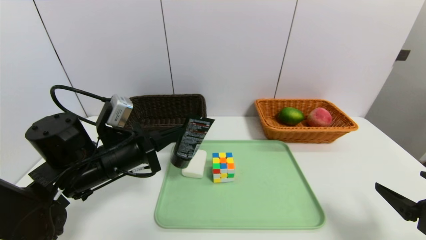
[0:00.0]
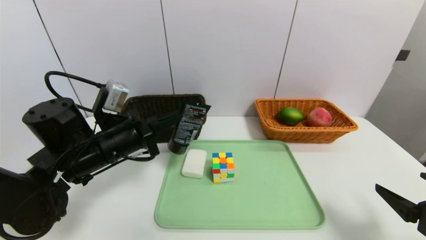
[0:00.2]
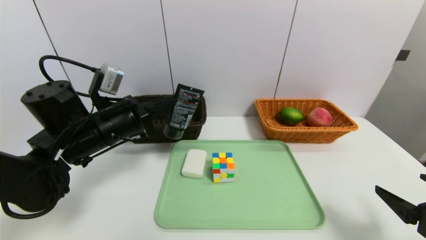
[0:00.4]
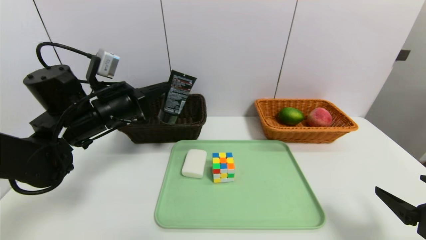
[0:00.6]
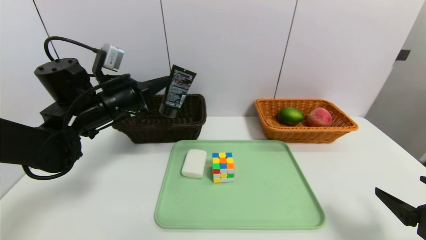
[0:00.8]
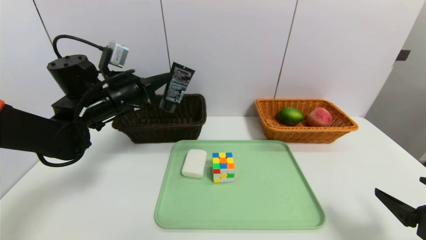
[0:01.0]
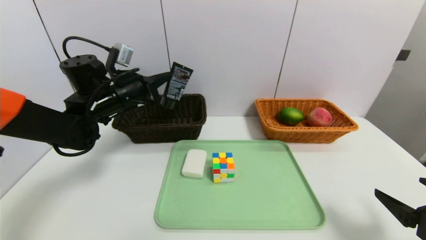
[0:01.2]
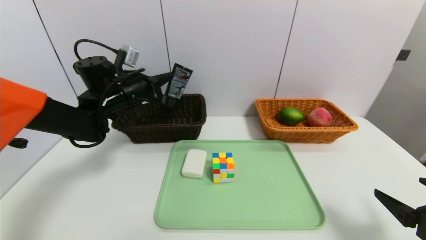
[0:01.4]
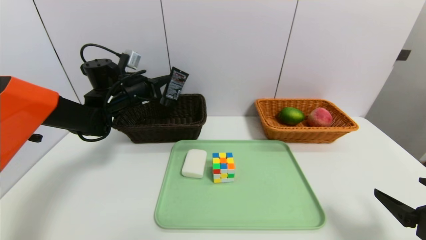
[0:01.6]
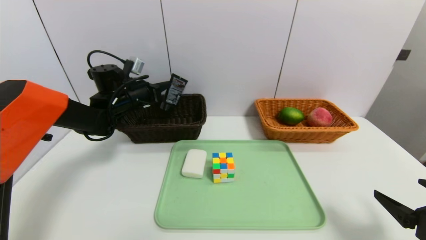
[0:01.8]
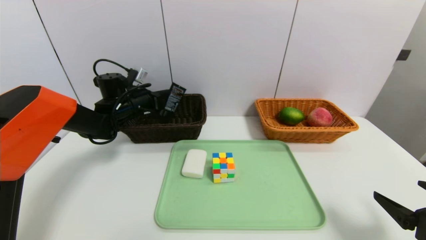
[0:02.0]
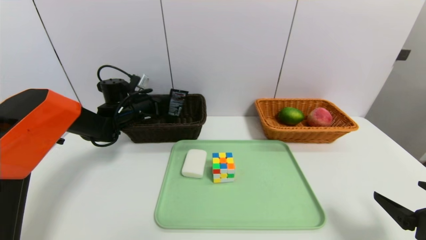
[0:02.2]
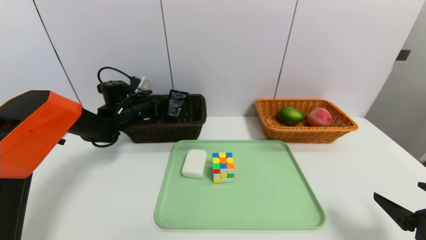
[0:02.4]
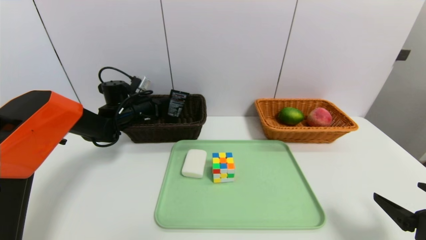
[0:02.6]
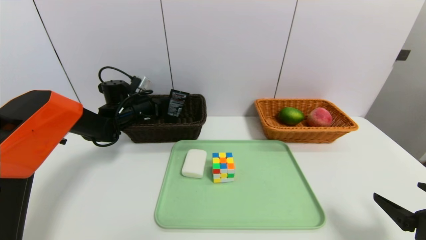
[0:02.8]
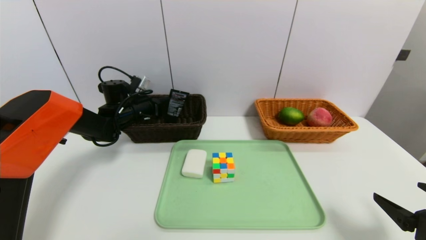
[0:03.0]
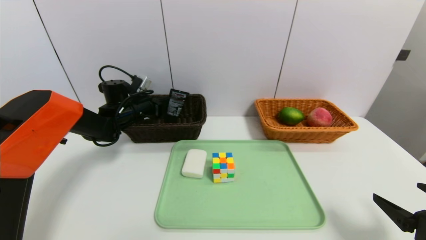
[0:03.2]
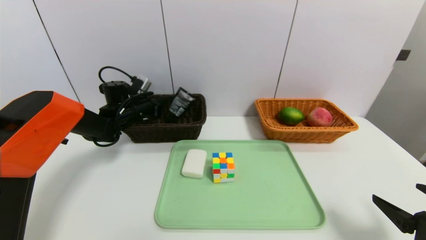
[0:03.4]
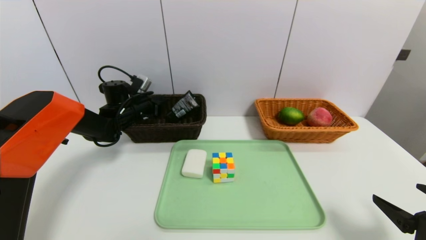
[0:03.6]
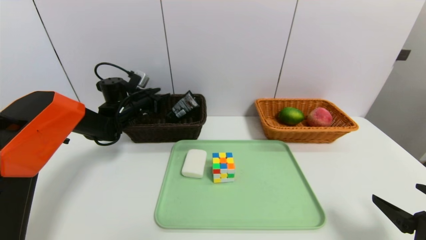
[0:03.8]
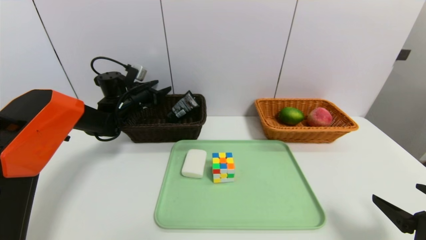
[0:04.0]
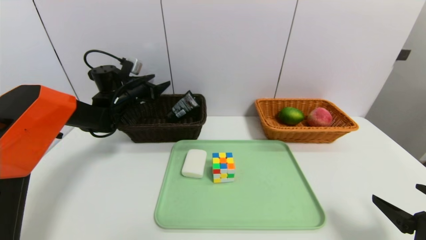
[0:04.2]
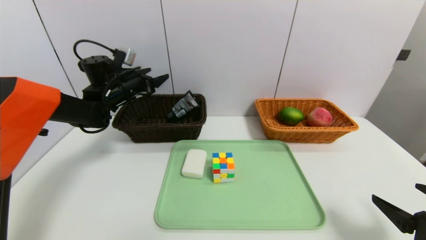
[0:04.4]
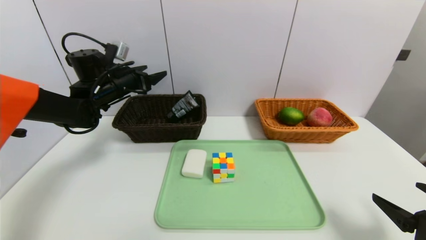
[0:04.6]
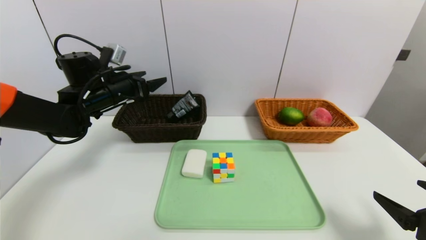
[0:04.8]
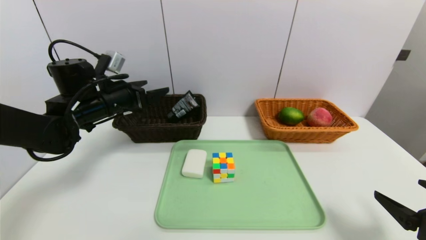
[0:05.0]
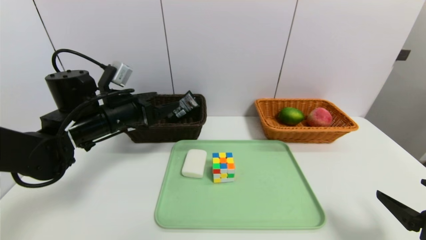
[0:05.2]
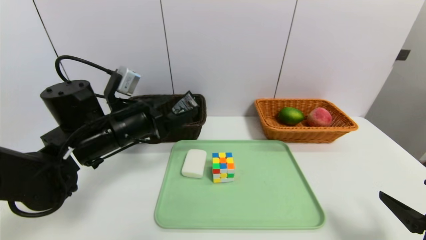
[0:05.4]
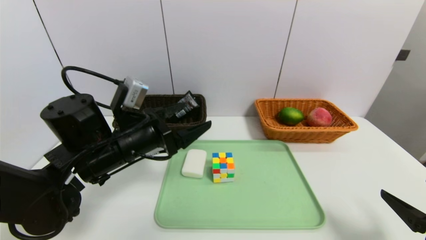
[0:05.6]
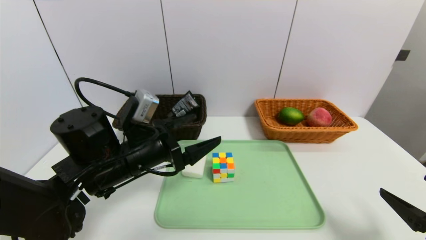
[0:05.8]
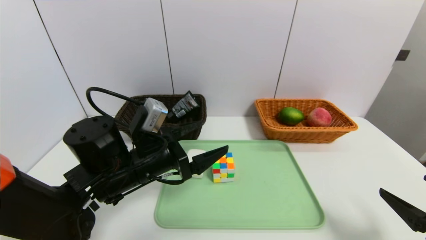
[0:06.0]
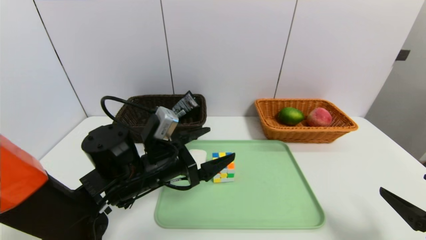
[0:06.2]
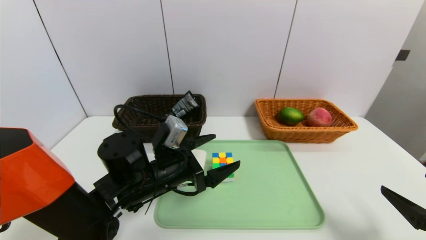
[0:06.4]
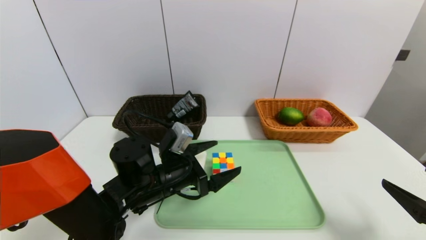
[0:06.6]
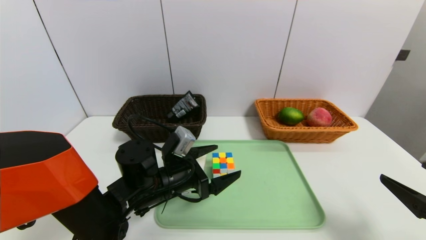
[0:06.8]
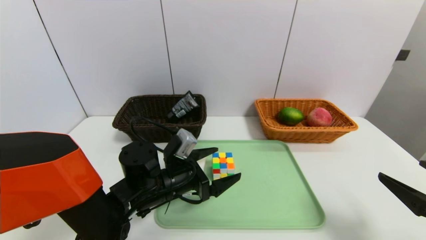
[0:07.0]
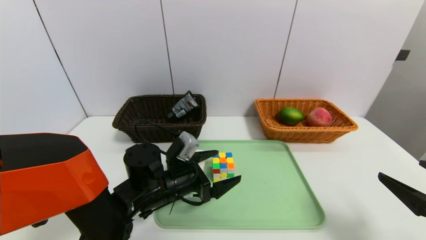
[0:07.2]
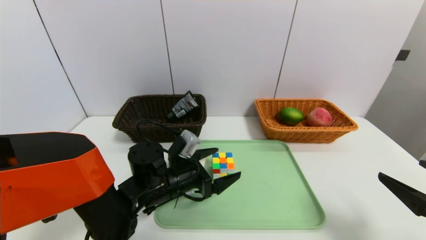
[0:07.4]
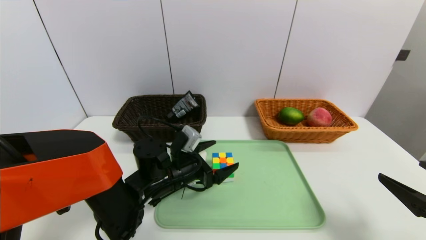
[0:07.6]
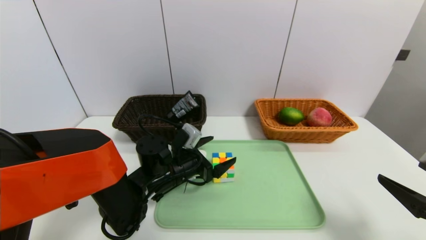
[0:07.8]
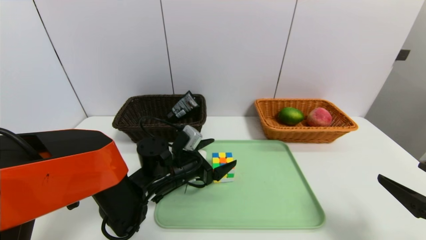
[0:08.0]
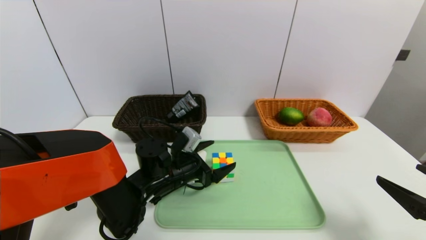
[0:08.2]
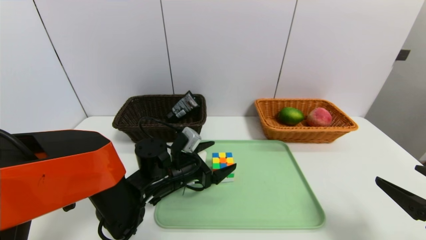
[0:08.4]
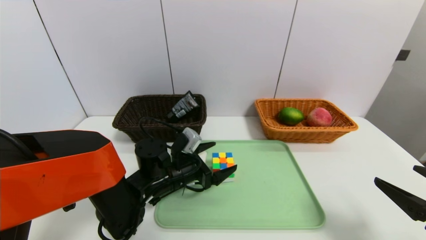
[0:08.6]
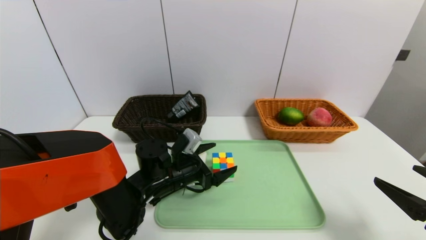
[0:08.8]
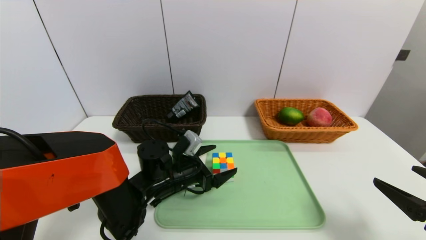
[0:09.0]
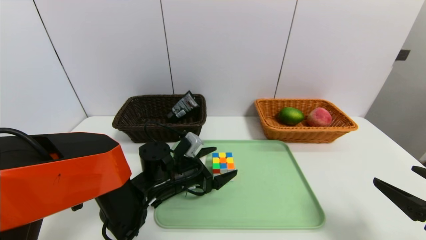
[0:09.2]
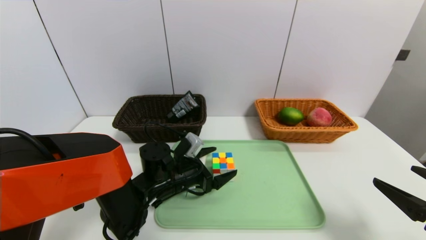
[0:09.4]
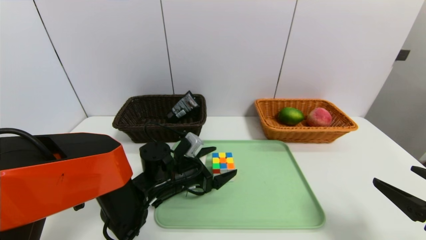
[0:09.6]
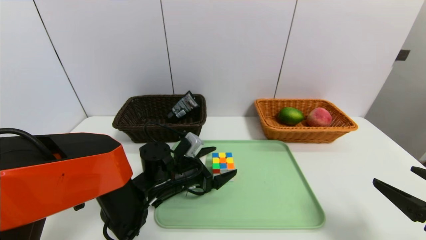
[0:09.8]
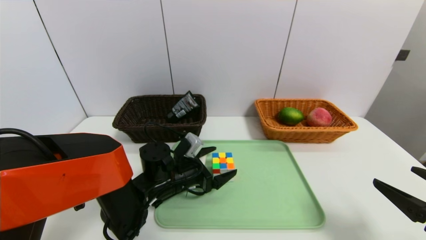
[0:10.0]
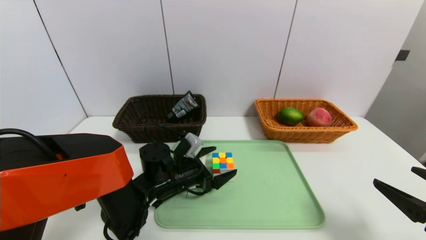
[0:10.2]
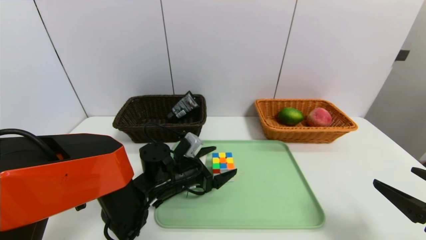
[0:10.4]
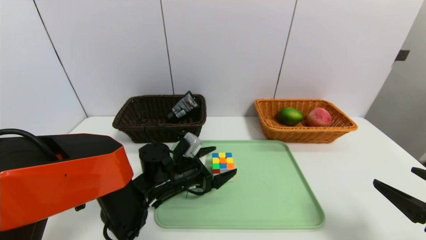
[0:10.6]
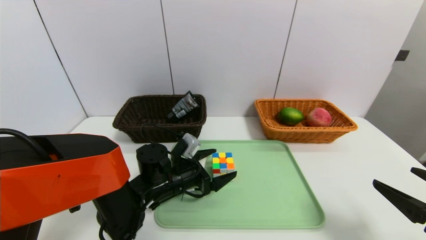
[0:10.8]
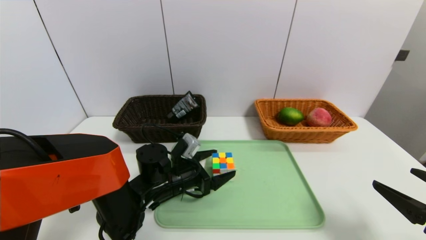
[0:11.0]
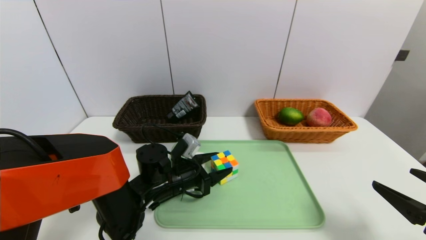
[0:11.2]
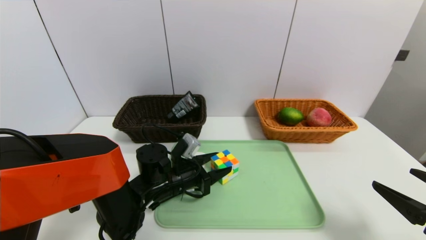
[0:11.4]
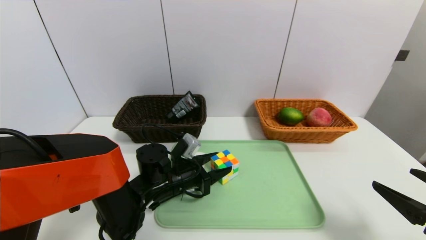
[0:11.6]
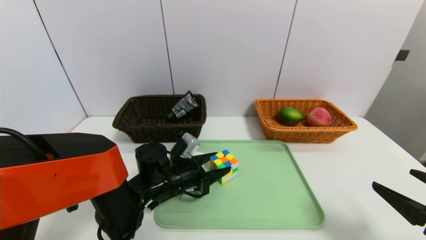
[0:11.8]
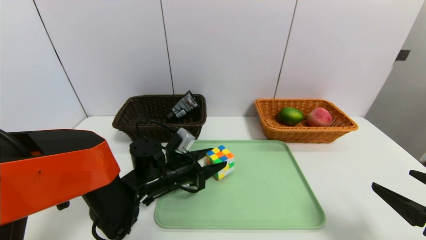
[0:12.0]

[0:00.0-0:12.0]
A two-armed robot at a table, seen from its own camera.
Task of the whole recording: place the food in the right basket with the right gripper, and place the non food items in the left basket with the left gripper.
Step, 0:00.0 to 0:04.0: Grasp the soft cleanser and put it in the left basket.
0:00.0 to 0:01.6: The left gripper goes roughly 20 cm forward.
0:01.6 to 0:03.0: The left gripper moves downward, about 5 cm.
0:03.0 to 0:04.4: The left gripper shifts roughly 10 cm upward, and opens up.
0:04.4 to 0:06.0: The left gripper moves backward and to the right, about 25 cm.
0:06.0 to 0:07.6: The left gripper heads downward, covering some 10 cm.
0:07.6 to 0:10.4: The grippers move only a little.
0:10.4 to 0:12.0: The left gripper closes.

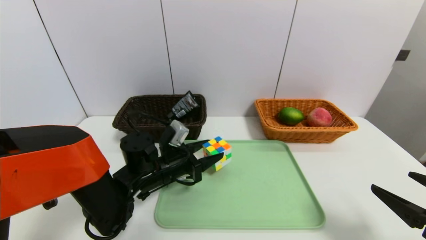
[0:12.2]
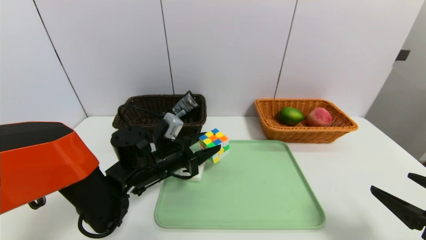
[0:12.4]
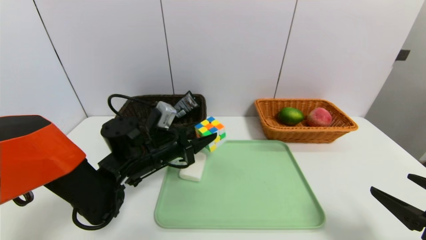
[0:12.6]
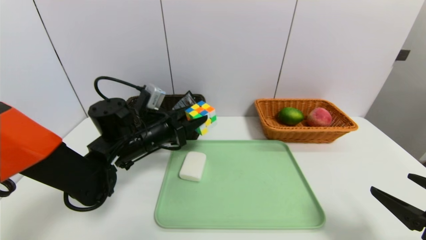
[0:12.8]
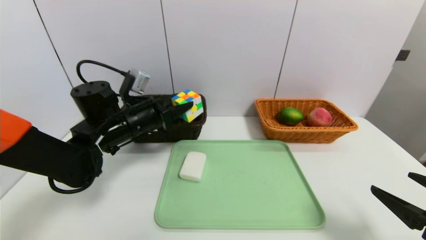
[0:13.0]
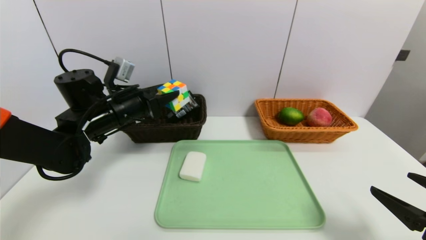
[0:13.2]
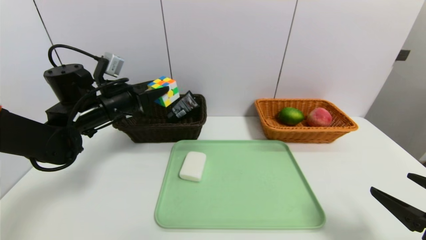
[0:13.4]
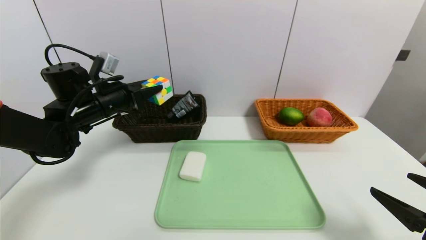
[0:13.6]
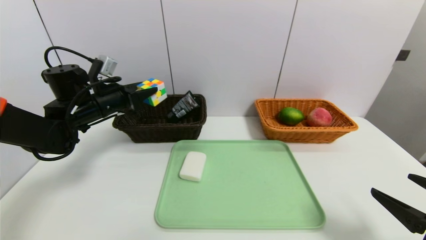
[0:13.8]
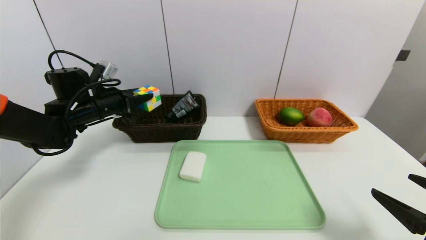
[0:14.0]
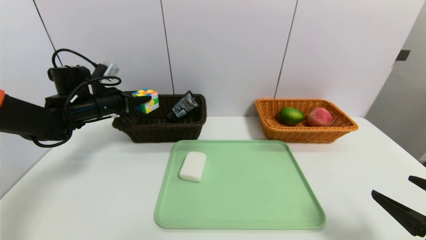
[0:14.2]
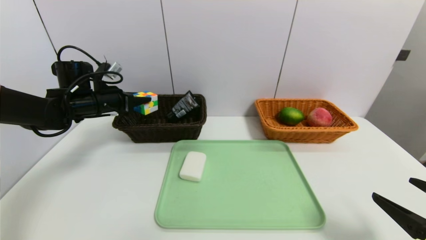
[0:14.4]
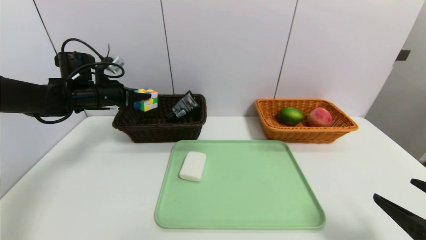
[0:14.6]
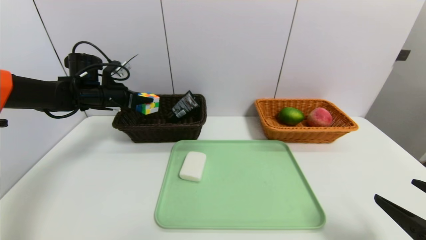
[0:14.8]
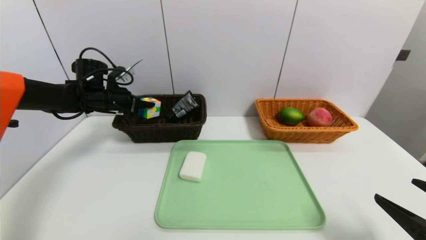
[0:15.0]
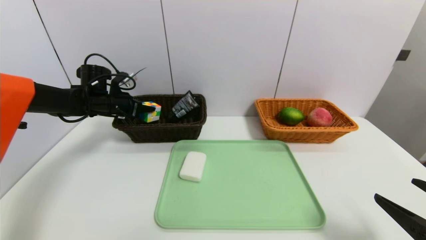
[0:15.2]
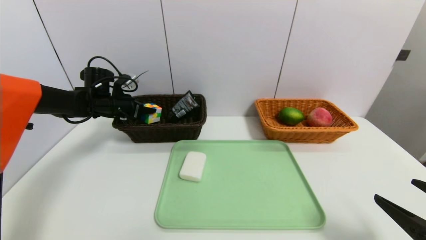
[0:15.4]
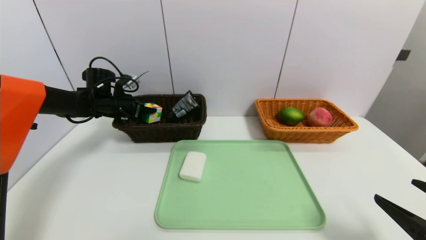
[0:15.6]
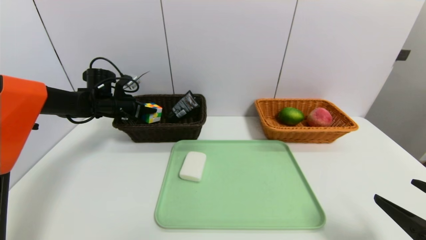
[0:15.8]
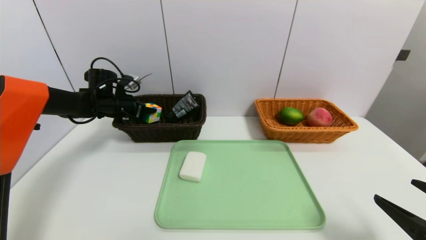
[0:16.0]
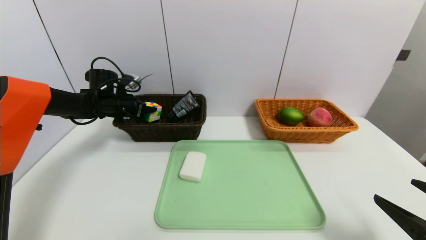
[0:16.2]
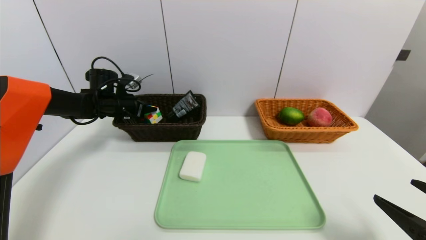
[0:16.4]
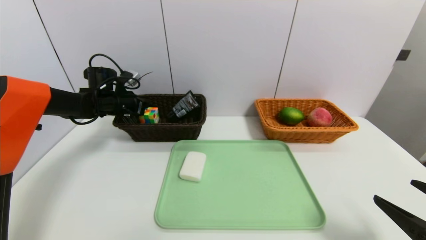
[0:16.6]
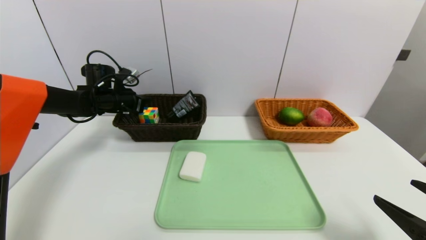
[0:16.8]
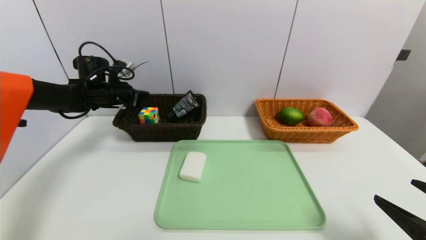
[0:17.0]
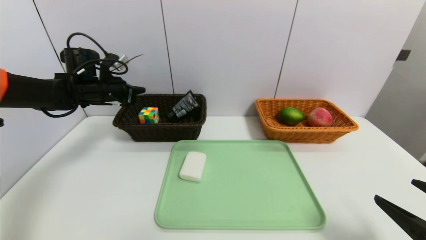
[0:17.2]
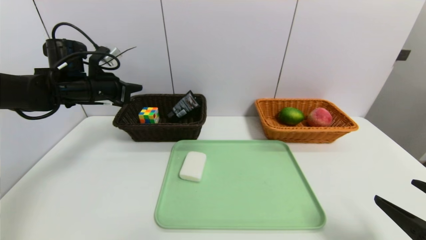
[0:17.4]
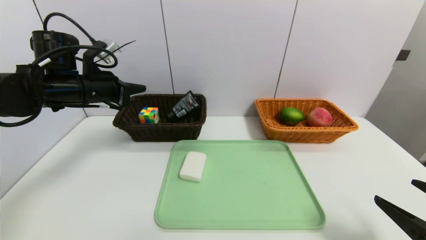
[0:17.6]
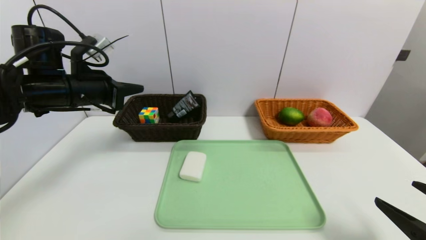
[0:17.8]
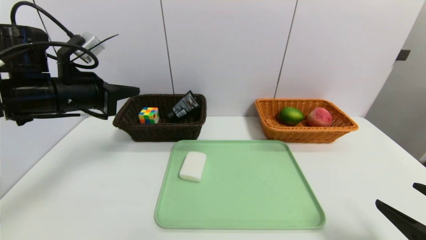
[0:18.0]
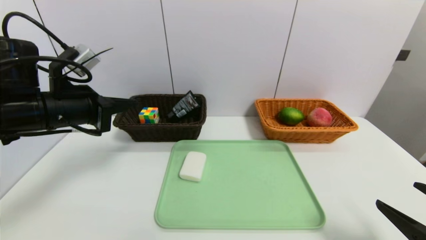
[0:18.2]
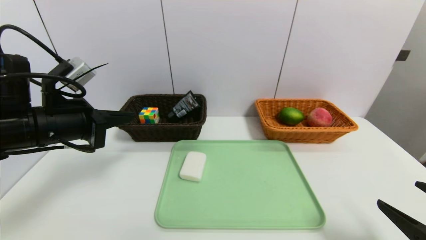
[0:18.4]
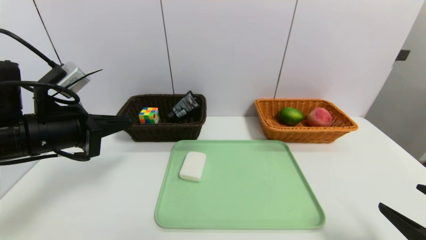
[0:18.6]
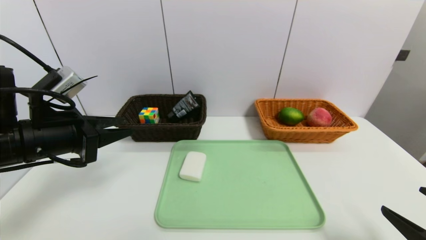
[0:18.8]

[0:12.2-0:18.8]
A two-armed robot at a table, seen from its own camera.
Task of the whole recording: place the food in the right basket with the right gripper, and place the non food items in the left basket with the left gripper.
Step, 0:12.2 to 0:16.6: Grasp the rubiks cube and put it in the left basket.
0:12.2 to 0:13.8: The left gripper shifts some 20 cm to the left, upward and forward.
0:13.8 to 0:15.4: The left gripper is displaced forward by approximately 10 cm.
0:15.4 to 0:17.2: The left gripper shifts roughly 5 cm upward, and closes.
0:17.2 to 0:18.8: The left gripper moves backward, roughly 20 cm, and opens up.
